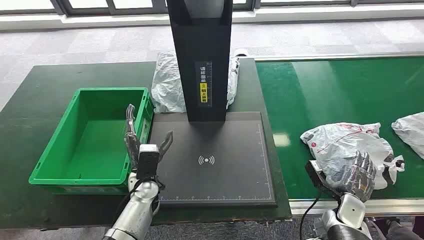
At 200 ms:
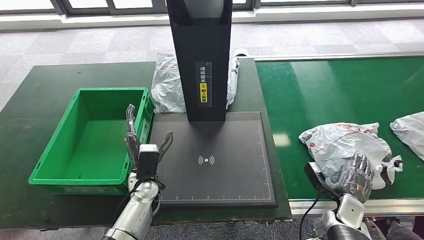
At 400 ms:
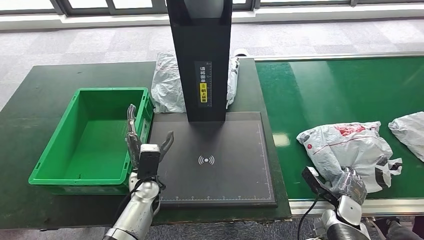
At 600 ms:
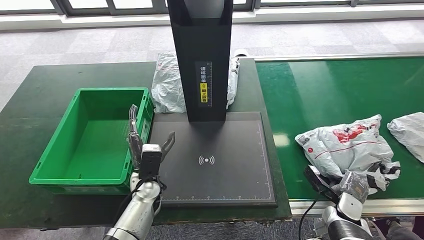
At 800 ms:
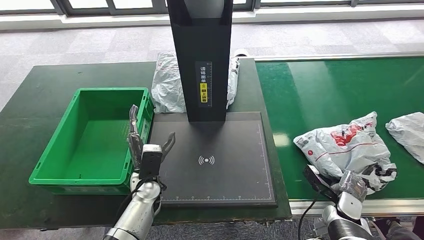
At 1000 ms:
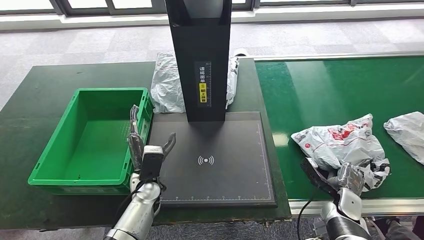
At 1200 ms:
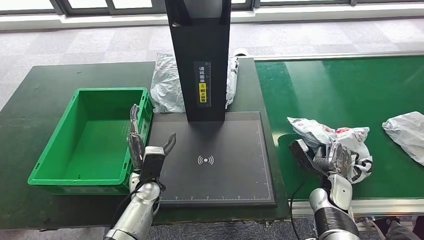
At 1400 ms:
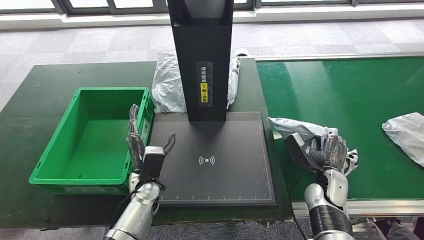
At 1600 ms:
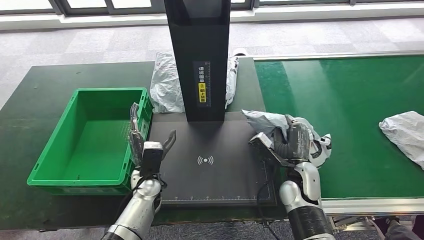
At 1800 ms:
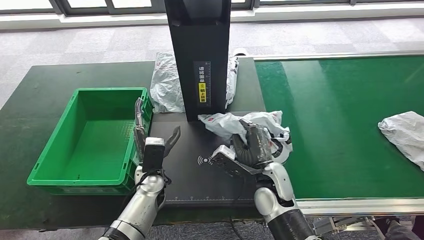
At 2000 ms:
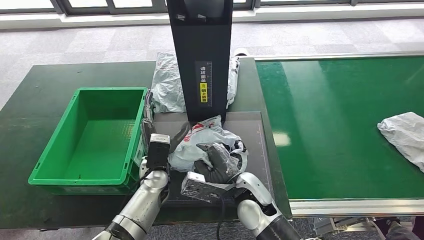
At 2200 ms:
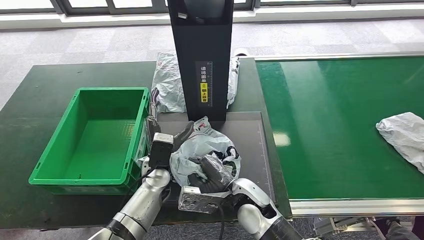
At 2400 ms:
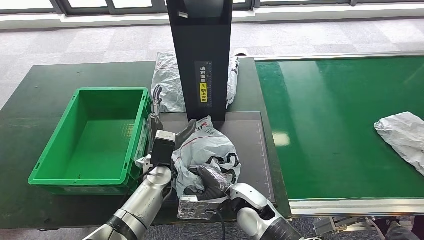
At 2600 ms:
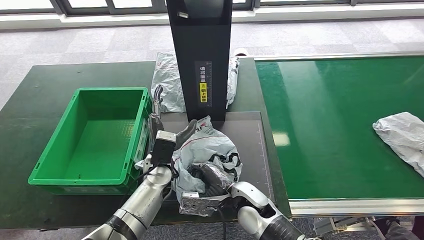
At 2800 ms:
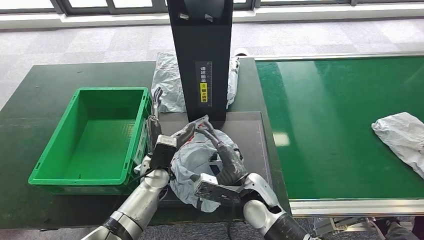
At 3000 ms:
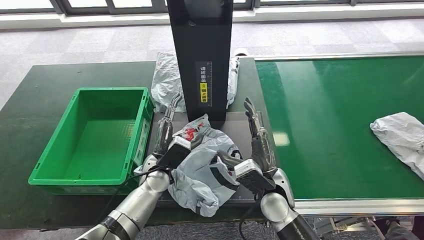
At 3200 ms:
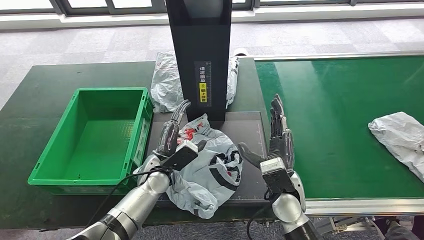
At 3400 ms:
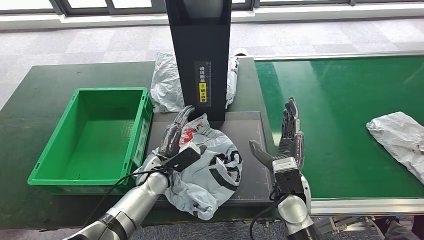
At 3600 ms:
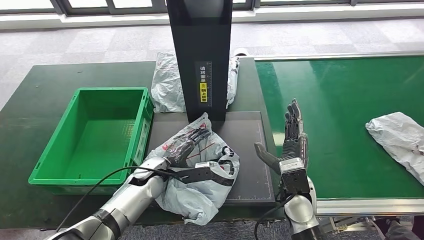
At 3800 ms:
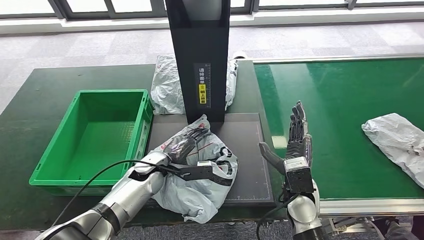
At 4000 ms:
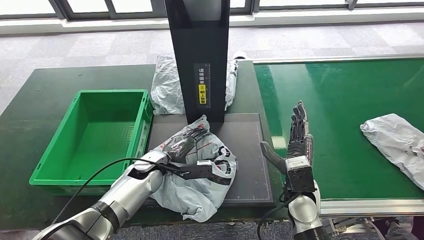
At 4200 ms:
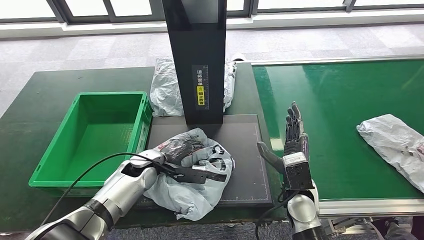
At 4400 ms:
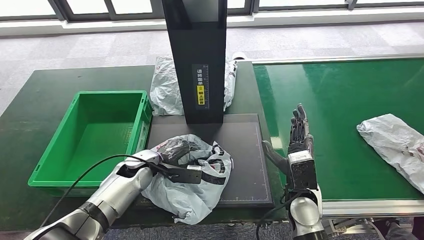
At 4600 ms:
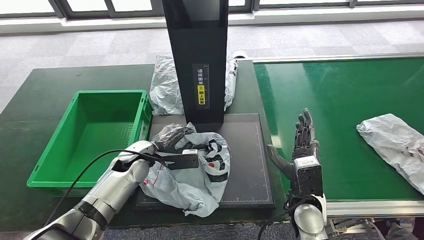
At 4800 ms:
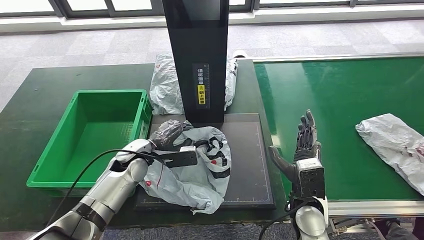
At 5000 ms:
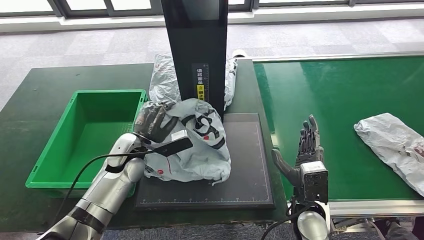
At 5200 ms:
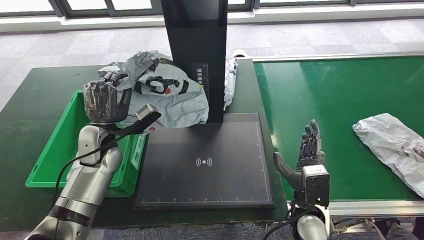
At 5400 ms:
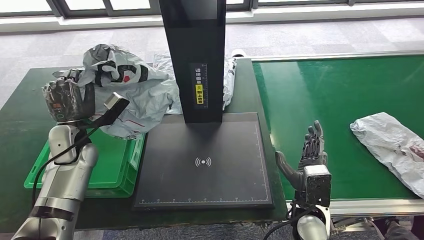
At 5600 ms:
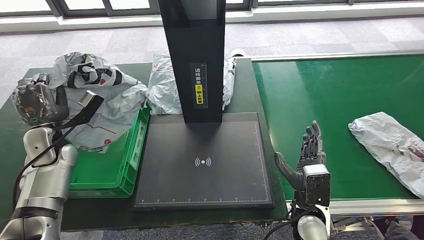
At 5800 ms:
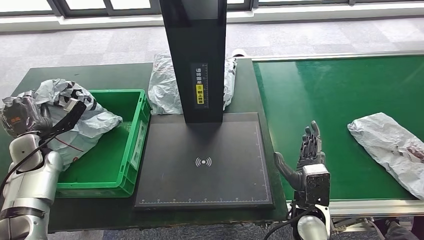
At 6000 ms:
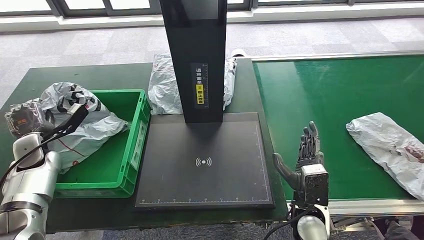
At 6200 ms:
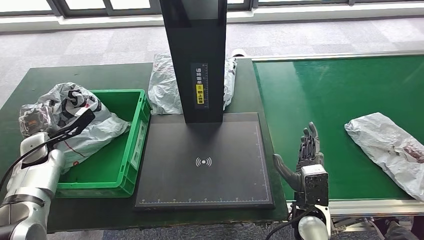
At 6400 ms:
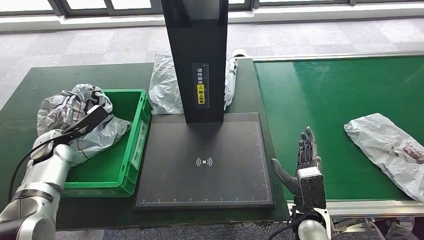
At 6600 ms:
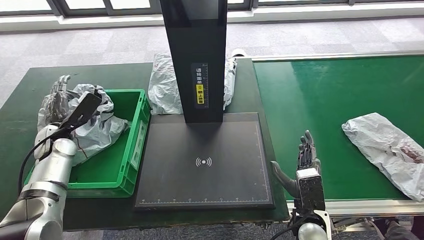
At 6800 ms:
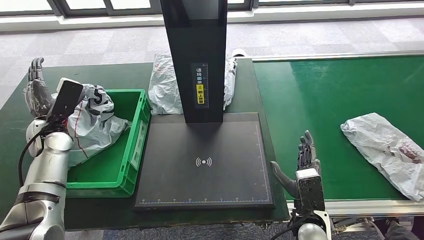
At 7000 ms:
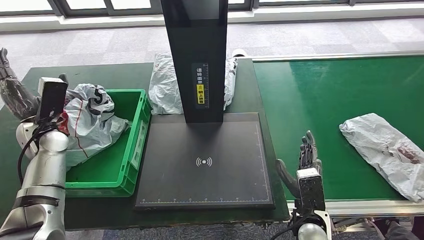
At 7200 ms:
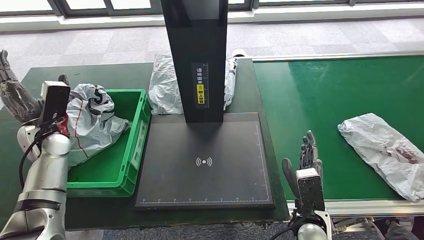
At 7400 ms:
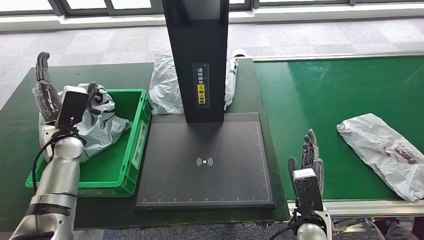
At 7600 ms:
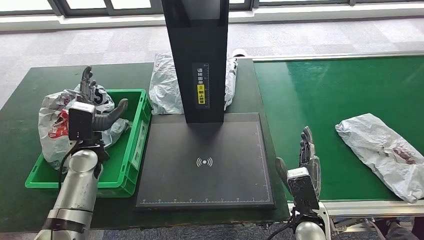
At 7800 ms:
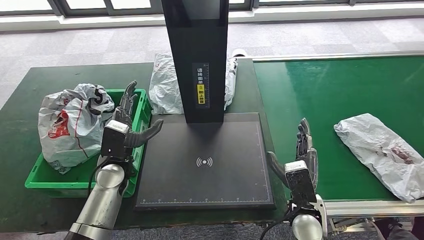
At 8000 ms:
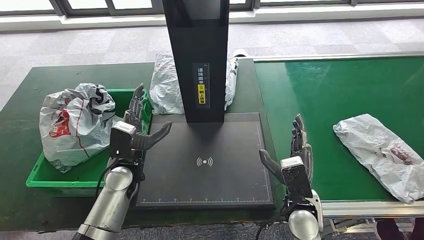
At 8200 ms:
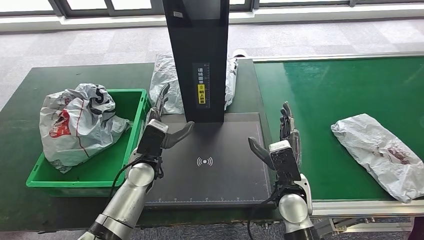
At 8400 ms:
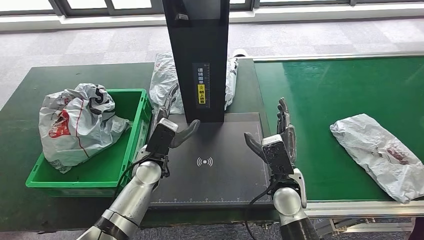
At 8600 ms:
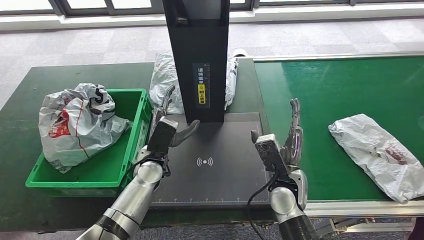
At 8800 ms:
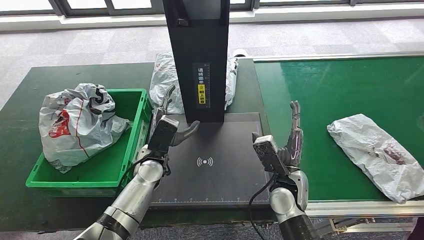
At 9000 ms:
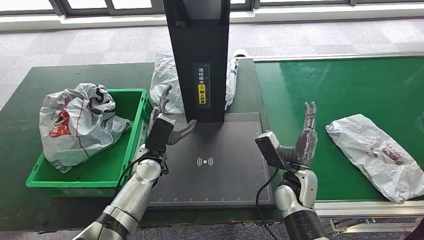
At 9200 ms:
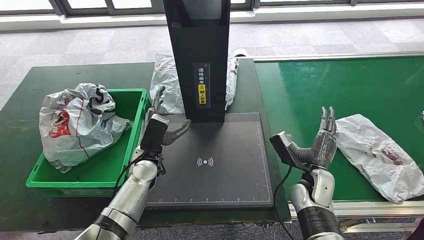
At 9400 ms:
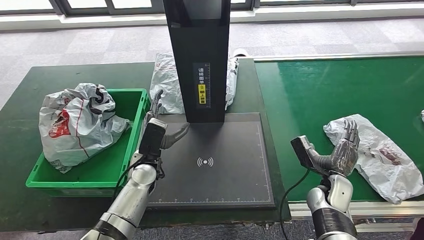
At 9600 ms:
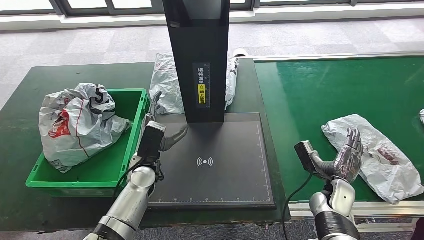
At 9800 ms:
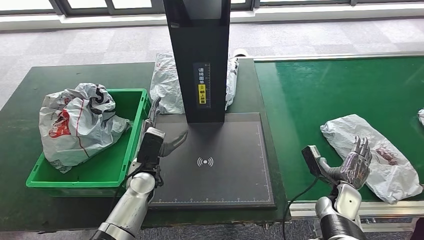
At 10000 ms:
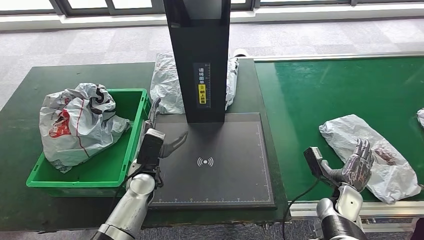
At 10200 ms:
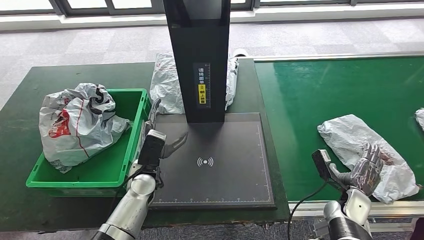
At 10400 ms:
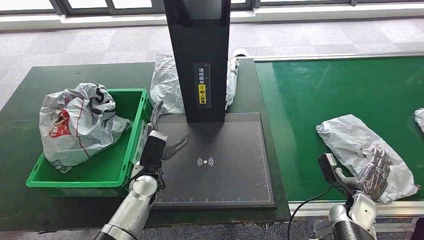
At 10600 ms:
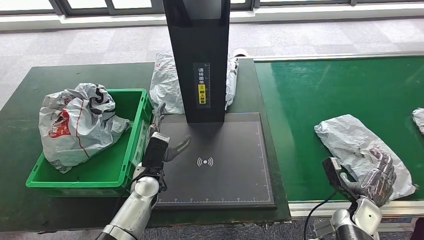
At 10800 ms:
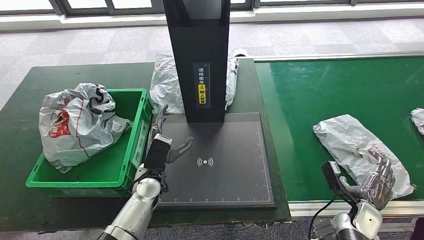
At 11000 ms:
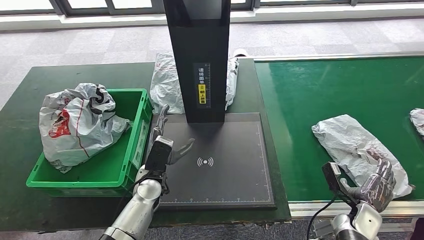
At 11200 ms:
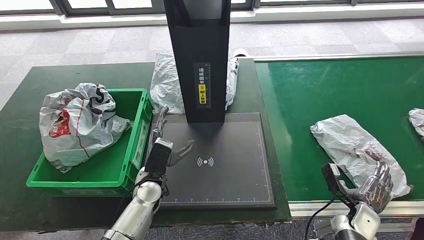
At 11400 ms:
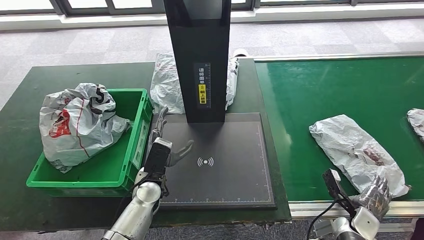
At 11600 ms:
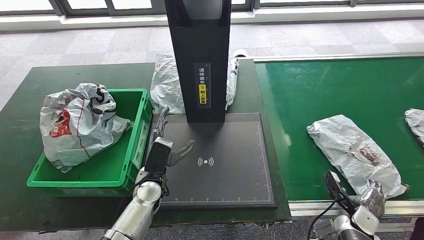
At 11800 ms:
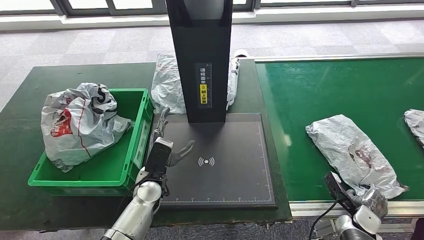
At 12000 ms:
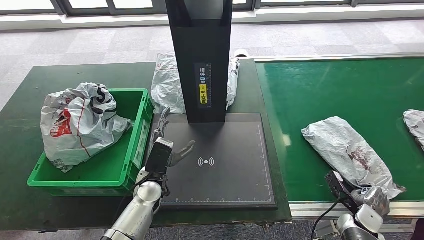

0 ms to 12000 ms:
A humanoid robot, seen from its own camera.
Step, 0 ms to 1800 ms: Take the parcel off the conveyor belt.
Step, 2200 ms to 3400 ms: Place the parcel onto the inbound machine.
Step, 3600 ms to 5200 ms: Pick up the parcel from the inbound machine.
Step, 5400 ms to 7800 ms: Put the parcel inside the courier box.
9000 ms to 10400 ms: The right hand shifts some 20 cm to the right and downward.

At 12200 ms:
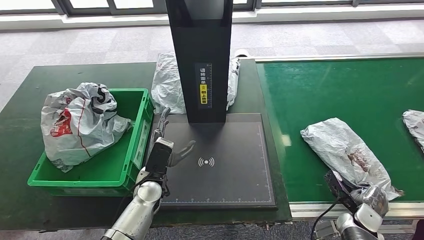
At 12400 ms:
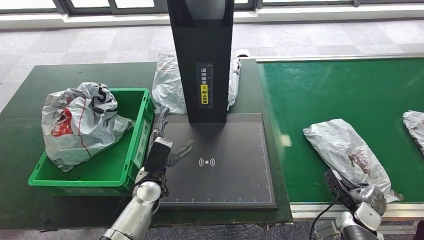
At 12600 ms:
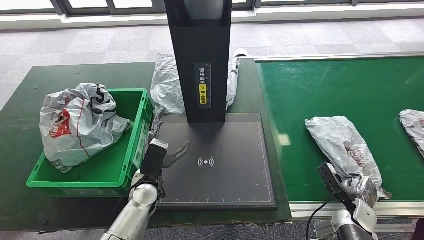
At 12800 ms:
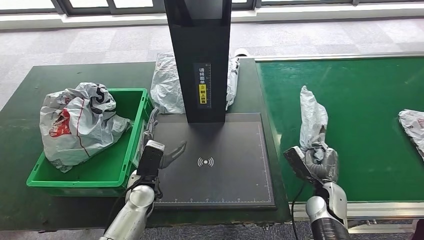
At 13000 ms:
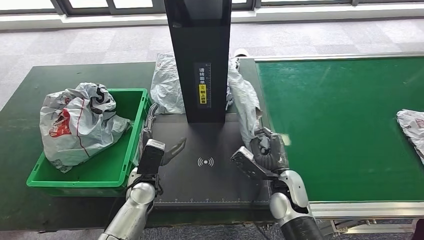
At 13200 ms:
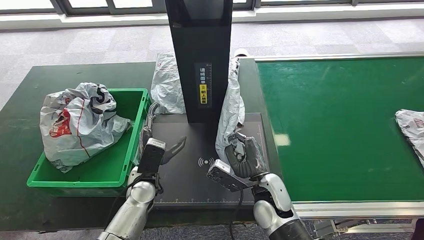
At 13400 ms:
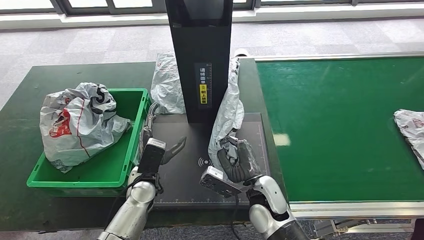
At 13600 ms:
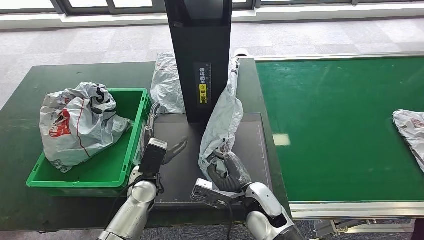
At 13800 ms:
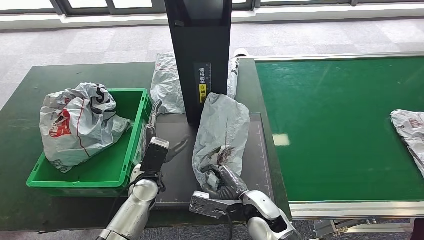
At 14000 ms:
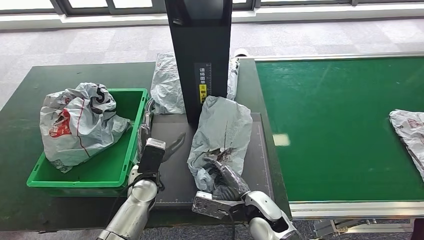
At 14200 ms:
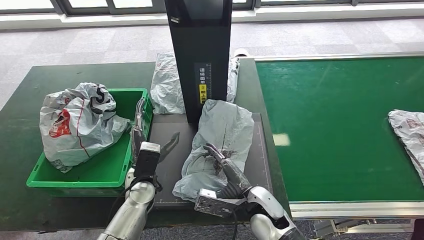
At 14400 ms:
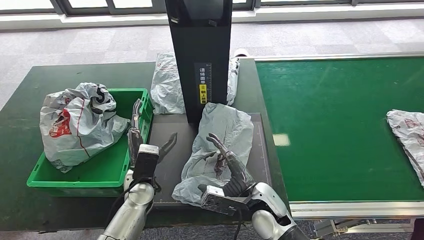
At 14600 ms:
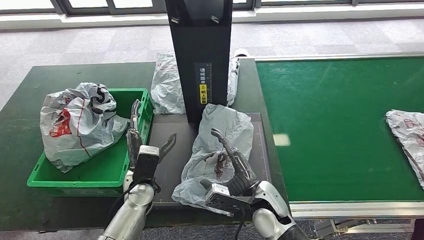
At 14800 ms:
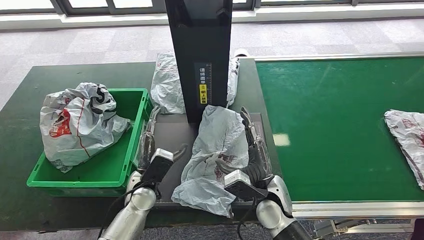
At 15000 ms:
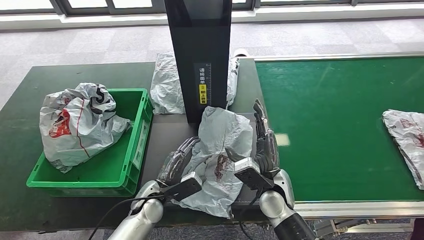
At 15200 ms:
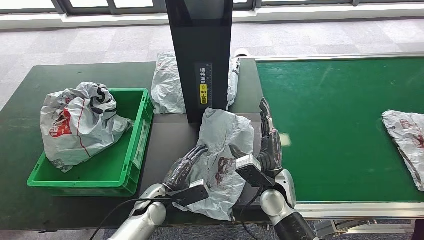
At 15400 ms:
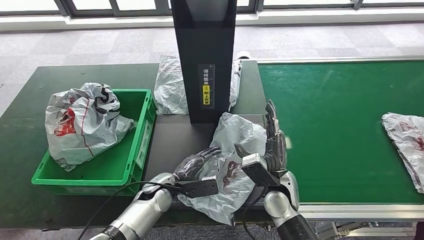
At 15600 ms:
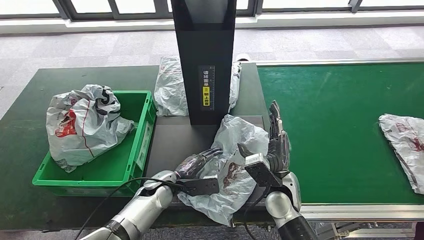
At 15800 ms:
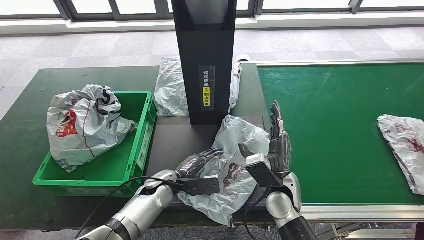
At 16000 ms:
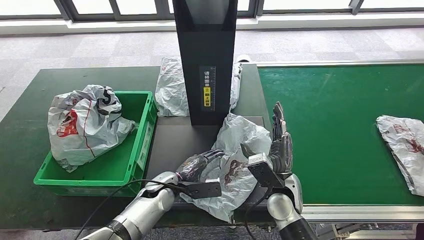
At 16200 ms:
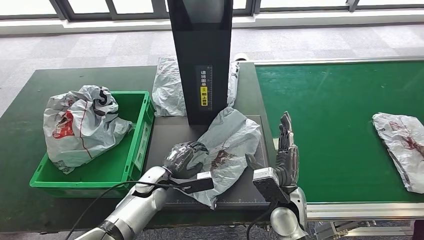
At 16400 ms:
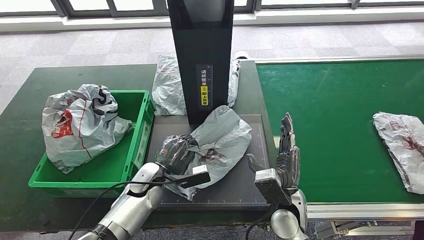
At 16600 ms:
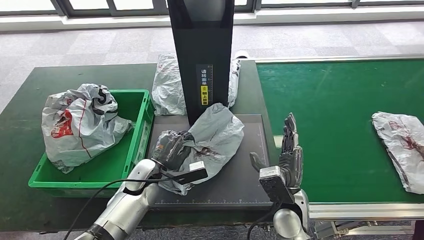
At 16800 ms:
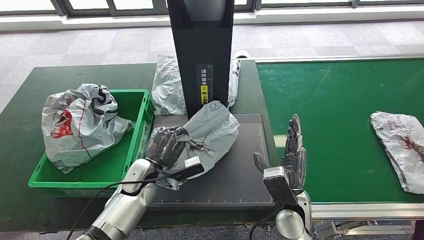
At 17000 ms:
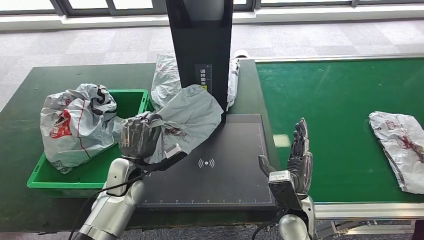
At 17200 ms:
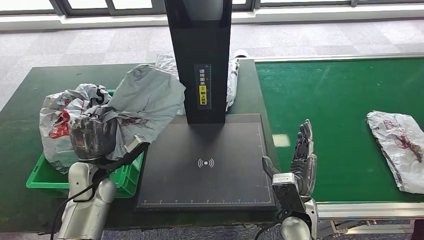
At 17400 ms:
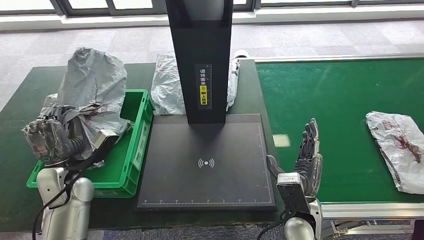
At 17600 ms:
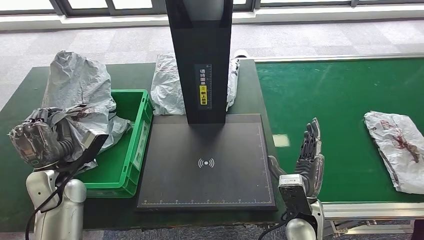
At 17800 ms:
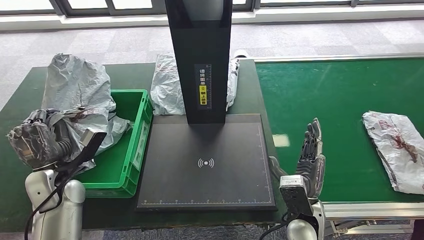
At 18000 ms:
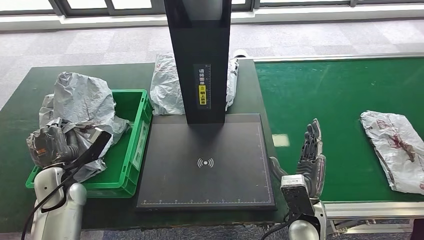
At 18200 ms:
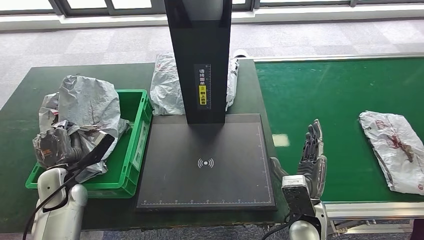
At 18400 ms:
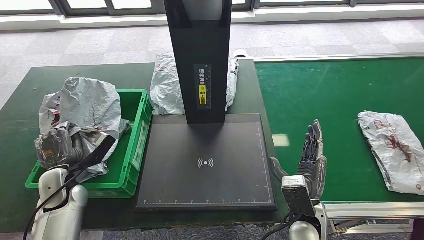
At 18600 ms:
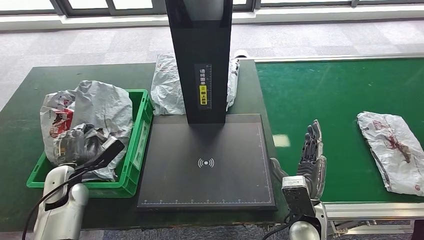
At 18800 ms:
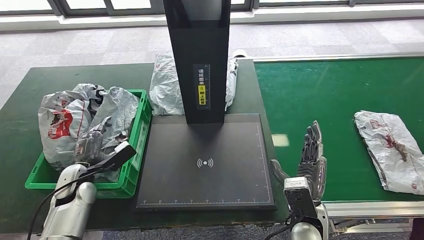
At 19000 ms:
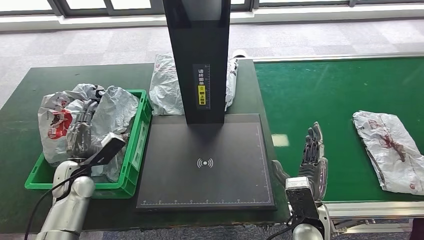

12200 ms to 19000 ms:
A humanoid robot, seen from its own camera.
Step, 14000 ms to 15600 ms: Place the parcel onto the inbound machine.
Step, 15800 ms to 17600 ms: Pick up the parcel from the inbound machine.
13600 ms to 15000 ms: The right hand moves roughly 5 cm. The left hand moves about 5 cm.
17600 ms to 19000 ms: The left hand moves downward, about 5 cm.
